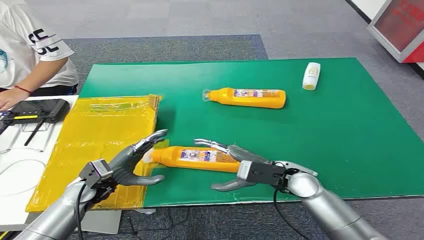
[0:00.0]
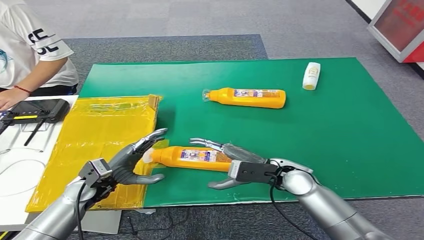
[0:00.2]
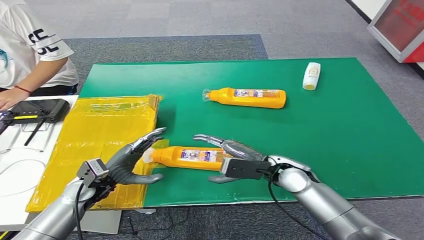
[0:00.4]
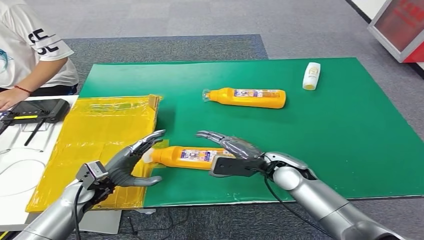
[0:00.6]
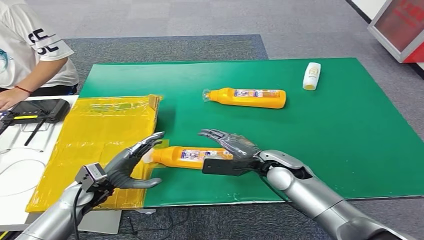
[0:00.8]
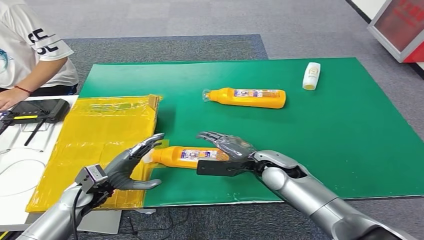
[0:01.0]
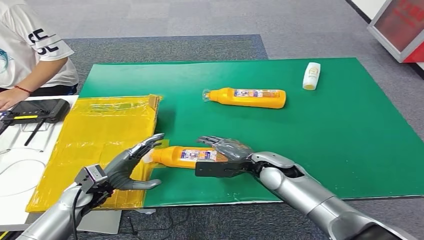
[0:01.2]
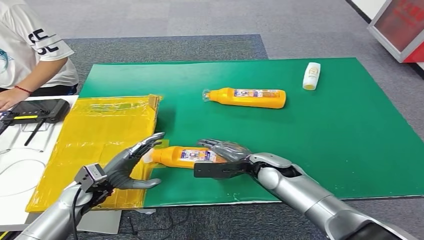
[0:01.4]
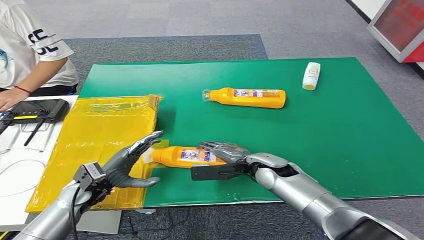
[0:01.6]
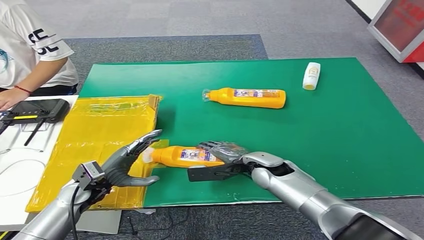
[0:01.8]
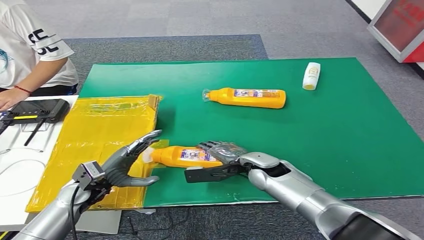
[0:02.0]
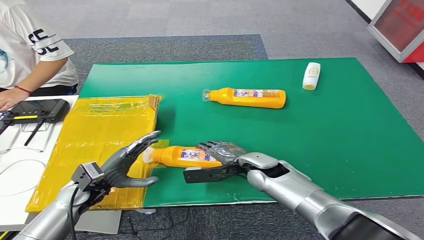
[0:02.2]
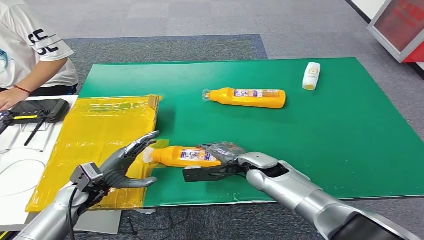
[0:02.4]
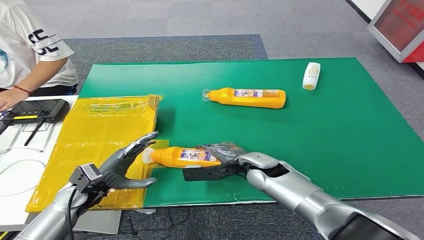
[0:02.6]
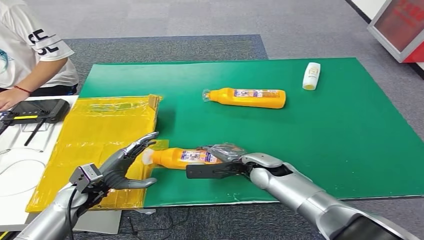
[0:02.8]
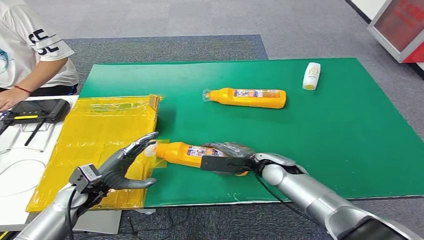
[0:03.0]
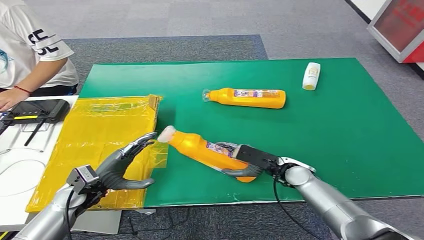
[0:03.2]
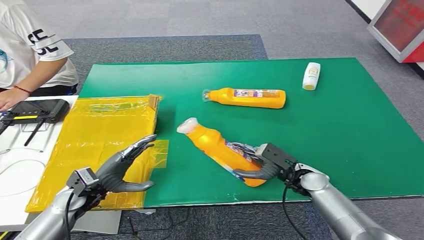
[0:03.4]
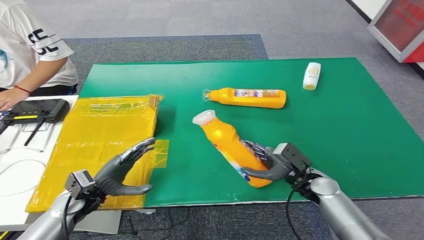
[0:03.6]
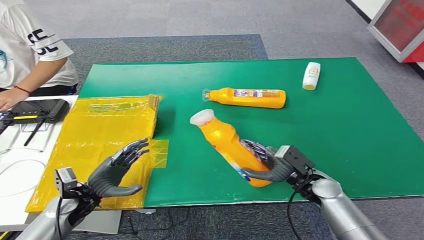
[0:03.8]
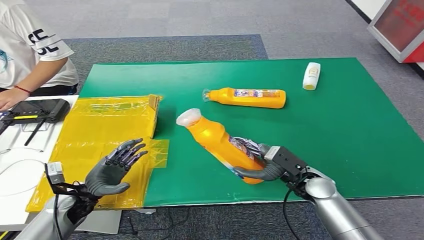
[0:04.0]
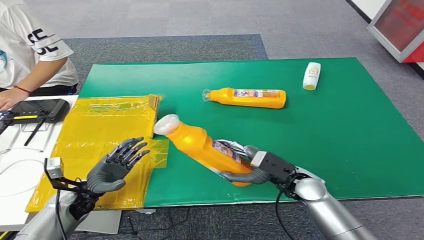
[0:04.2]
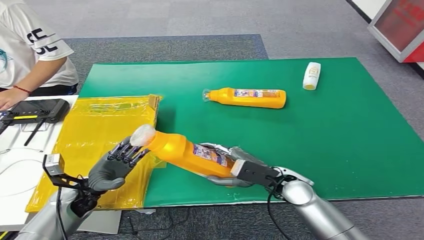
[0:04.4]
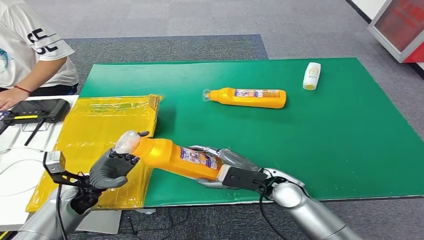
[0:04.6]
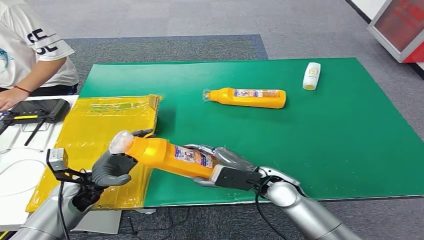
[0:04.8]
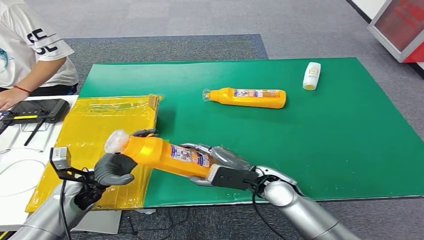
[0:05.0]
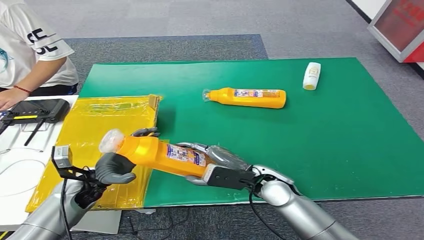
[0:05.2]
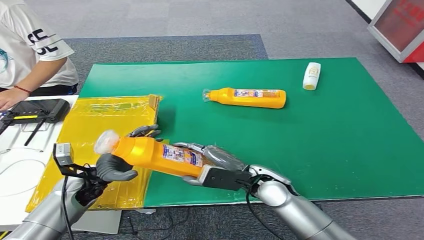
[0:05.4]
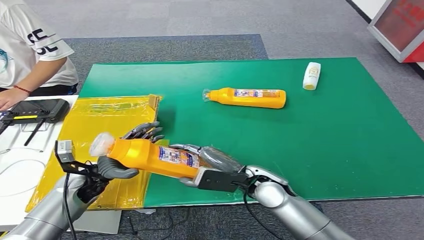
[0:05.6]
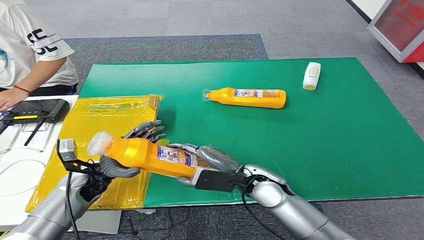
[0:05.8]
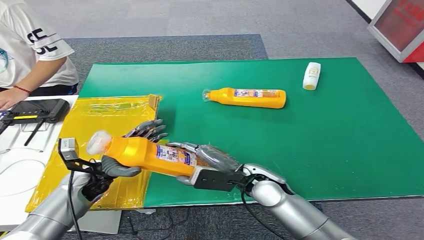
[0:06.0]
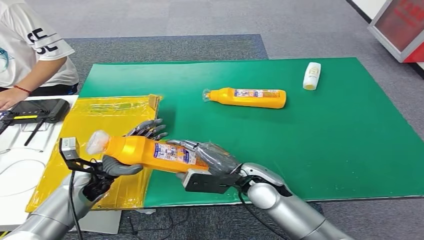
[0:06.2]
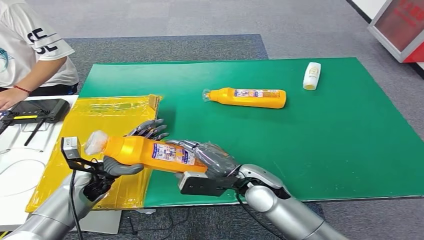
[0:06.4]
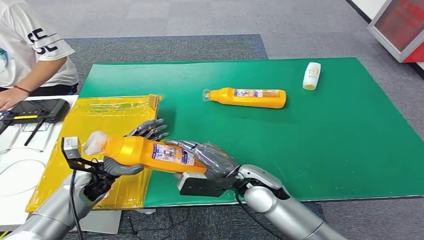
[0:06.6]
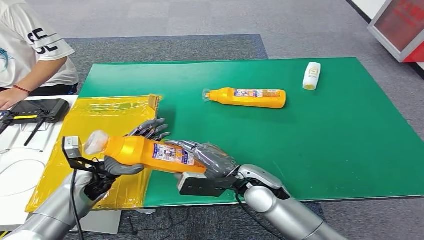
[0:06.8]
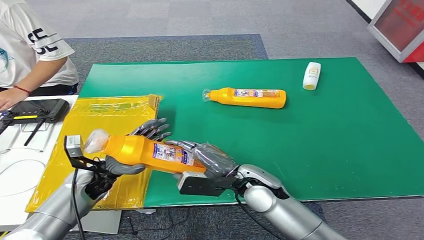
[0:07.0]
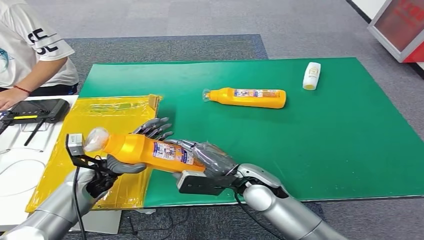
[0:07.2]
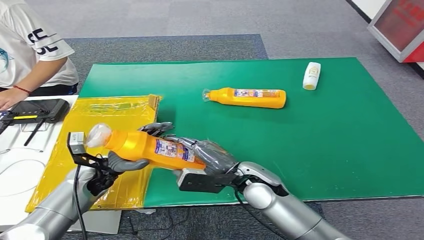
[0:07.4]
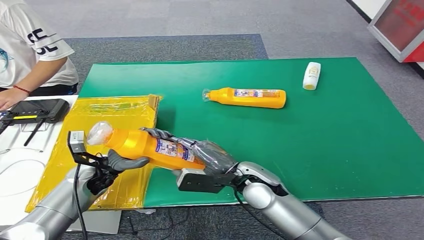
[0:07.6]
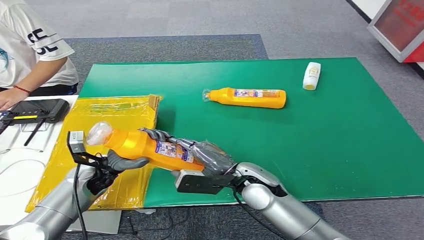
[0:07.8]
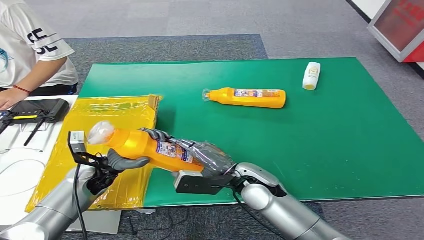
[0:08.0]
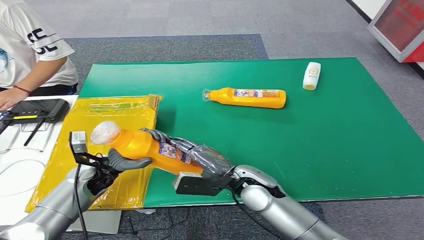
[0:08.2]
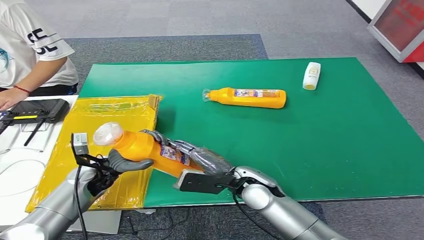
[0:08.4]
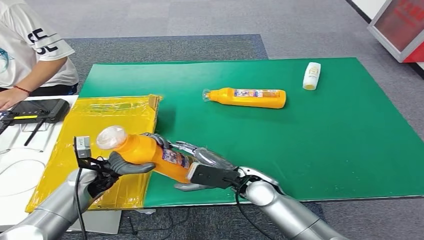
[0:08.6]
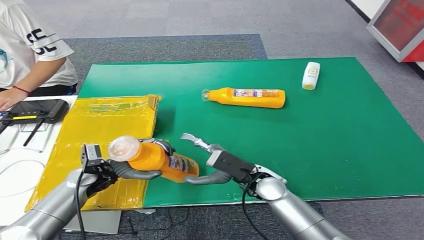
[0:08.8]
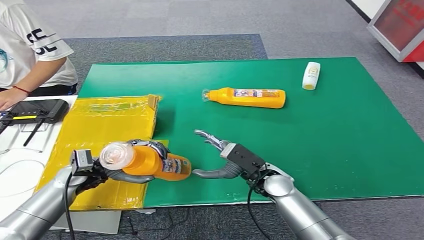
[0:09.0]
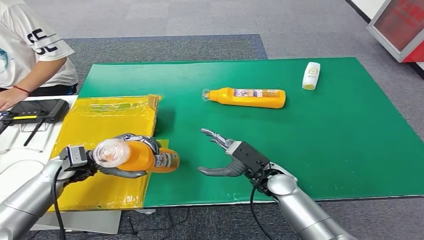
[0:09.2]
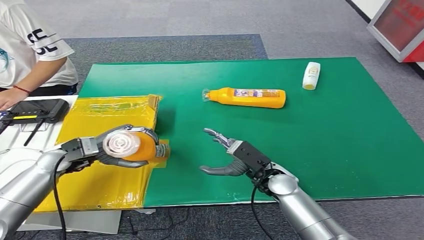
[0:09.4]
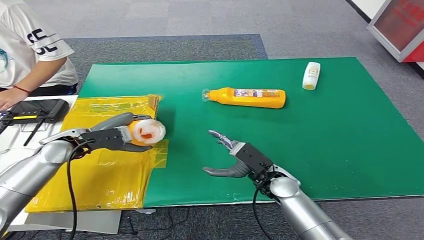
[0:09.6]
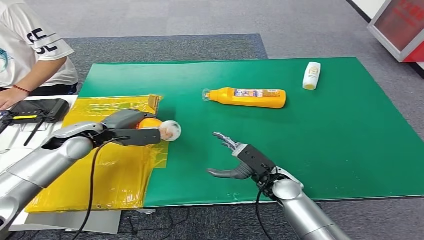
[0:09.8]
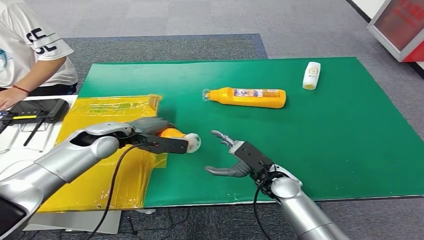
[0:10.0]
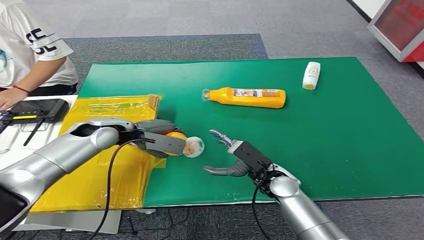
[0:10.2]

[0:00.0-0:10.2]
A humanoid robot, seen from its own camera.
Step, 0:00.0 to 0:03.8: Pick up the bottle from the table.
0:01.4 to 0:03.0: The hands stay close to where they were, moving slightly.
0:03.0 to 0:04.4: The right hand goes about 5 cm backward, and goes to the right and returns, approximately 10 cm each way.
0:04.4 to 0:05.8: The right hand is displaced to the left by some 5 cm. The left hand ends up about 5 cm from where it was.
0:05.8 to 0:07.2: The hands make only small movements.
0:08.8 to 0:10.2: The left hand moves upward and forward, about 15 cm.

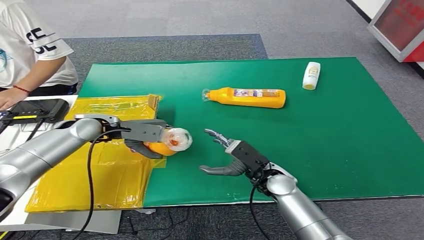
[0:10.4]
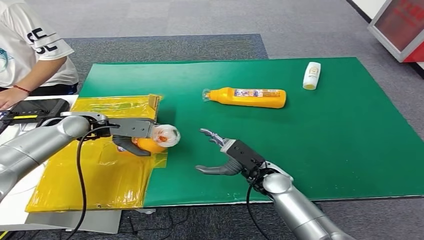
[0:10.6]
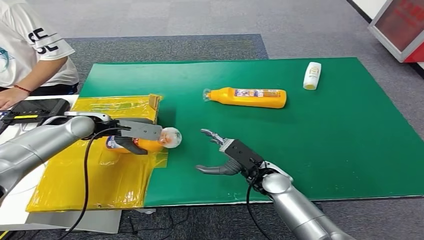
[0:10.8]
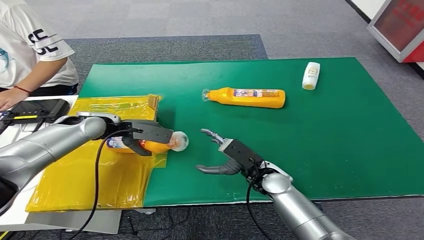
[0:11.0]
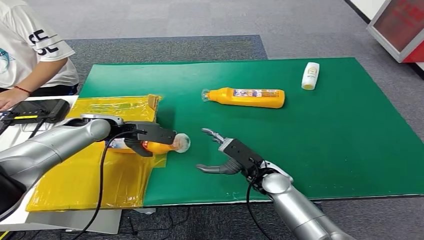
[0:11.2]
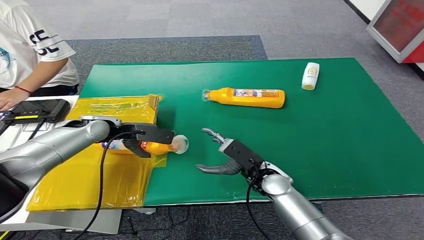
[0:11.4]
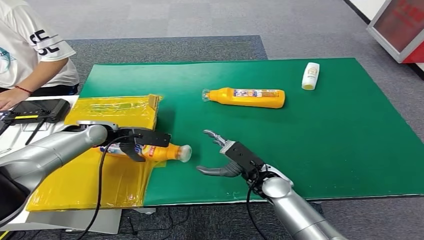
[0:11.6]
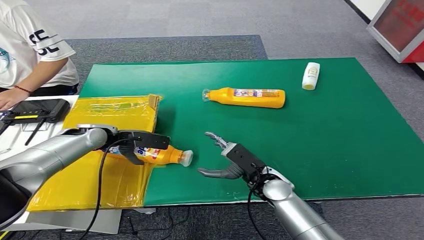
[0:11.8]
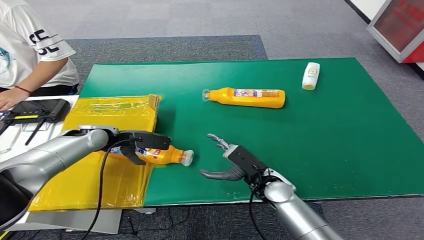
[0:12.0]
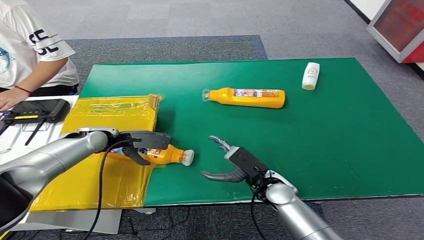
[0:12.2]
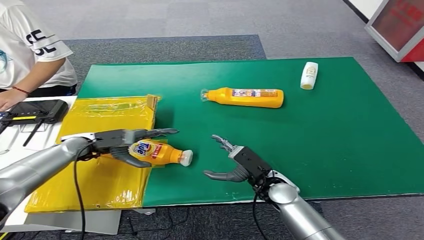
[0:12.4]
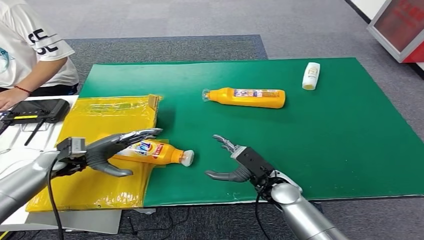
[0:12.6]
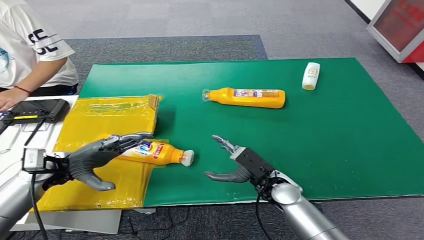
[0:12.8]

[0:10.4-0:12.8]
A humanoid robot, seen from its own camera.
Step, 0:10.4 to 0:12.8: Turn the bottle to the front side.
0:11.6 to 0:12.8: The left hand travels backward and to the left by roughly 15 cm.

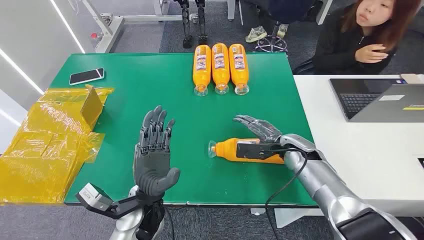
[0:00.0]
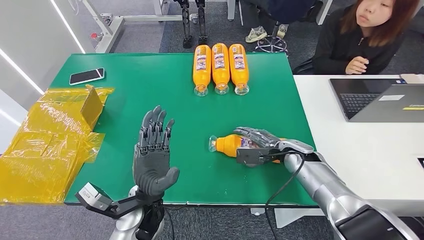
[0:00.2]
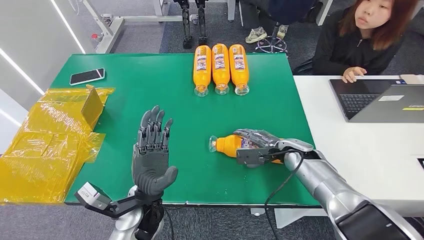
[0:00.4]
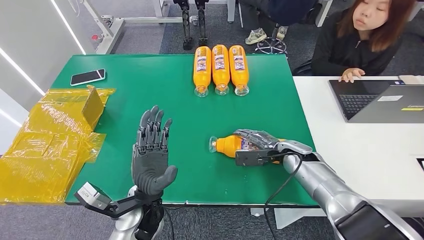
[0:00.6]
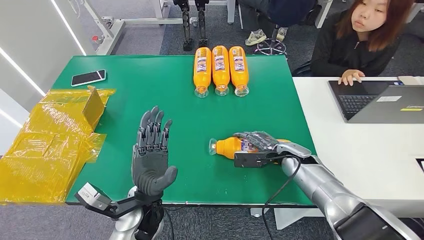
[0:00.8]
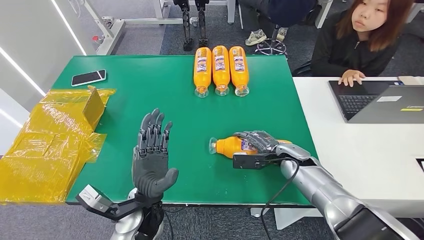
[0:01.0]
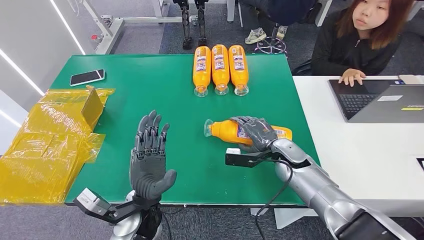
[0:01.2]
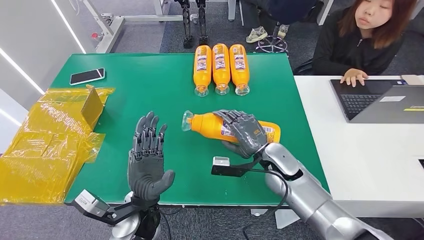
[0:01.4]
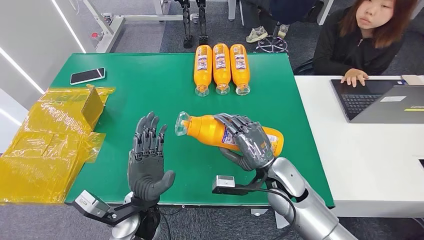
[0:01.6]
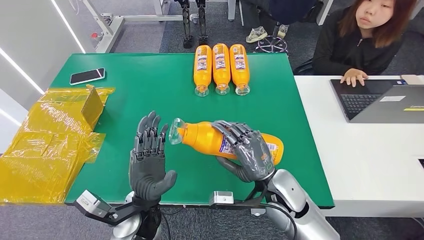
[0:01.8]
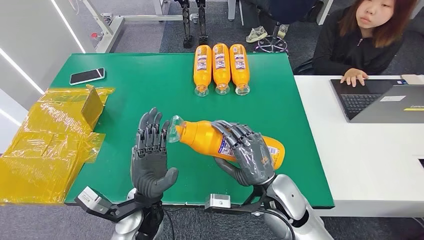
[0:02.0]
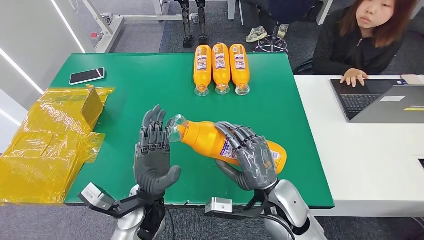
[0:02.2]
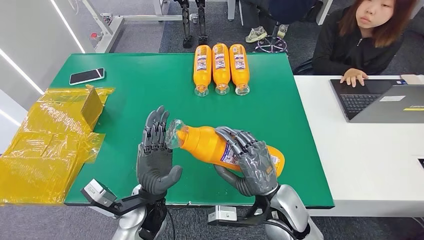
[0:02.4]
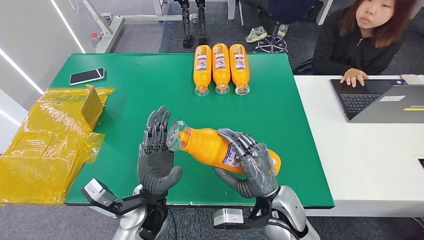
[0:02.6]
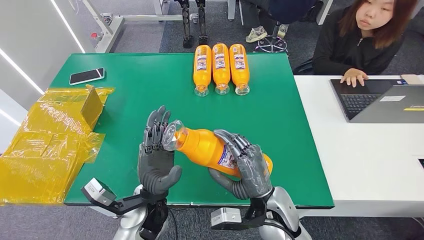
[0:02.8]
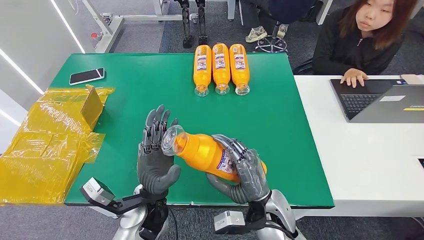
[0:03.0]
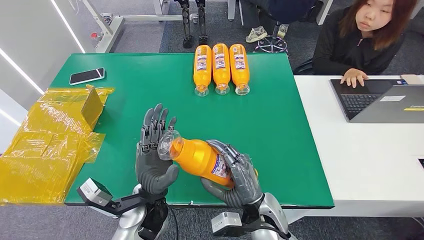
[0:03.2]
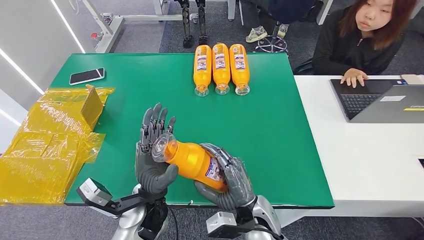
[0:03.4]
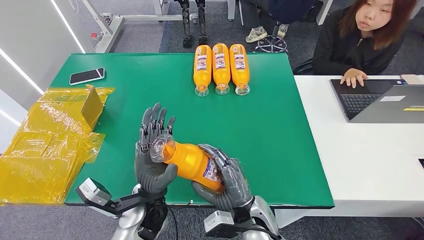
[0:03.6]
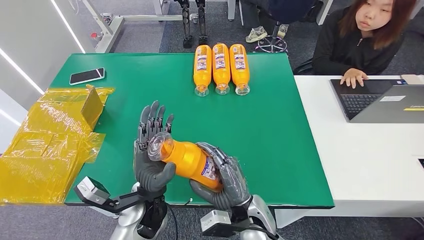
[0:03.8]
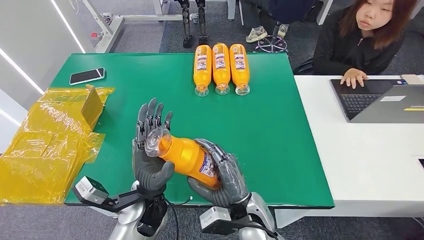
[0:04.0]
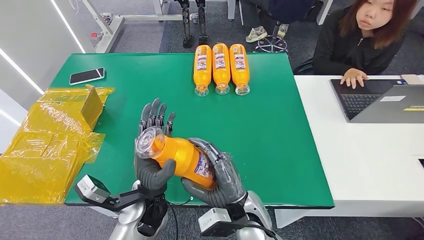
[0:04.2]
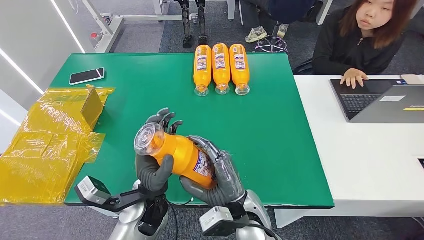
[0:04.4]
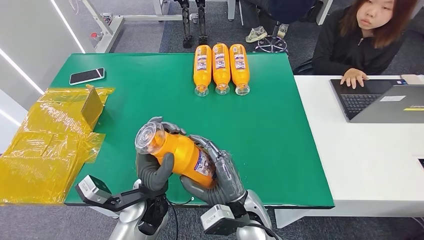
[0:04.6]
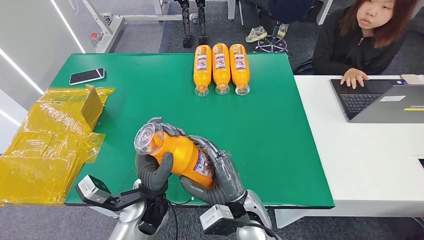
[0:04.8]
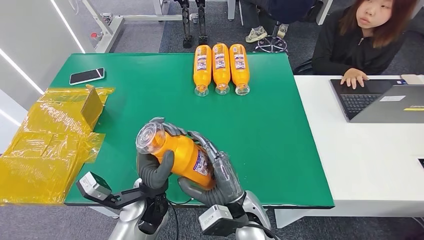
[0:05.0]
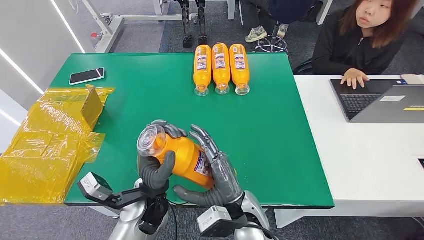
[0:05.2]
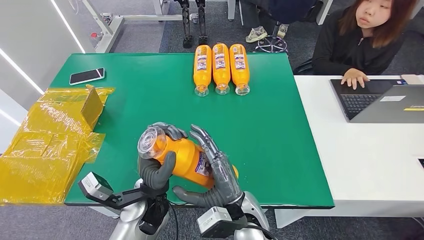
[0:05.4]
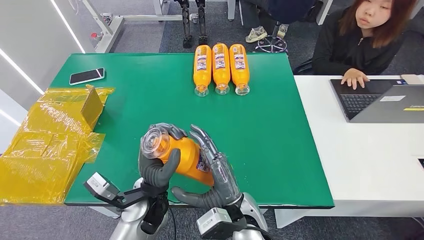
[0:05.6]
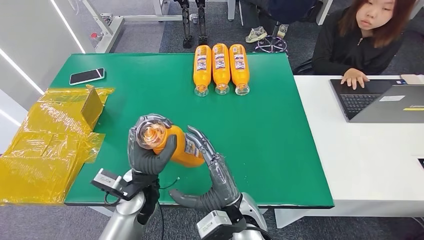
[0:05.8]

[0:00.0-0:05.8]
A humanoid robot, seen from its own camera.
Step, 0:00.0 to 0:02.6: Pick up the bottle from the table.
0:01.4 to 0:02.8: The right hand moves backward and to the left, some 15 cm.
0:02.8 to 0:04.4: The right hand heads to the left, covering about 5 cm.
